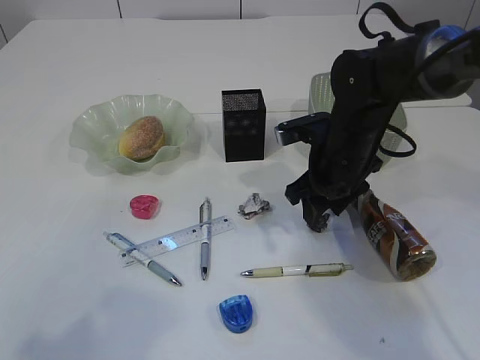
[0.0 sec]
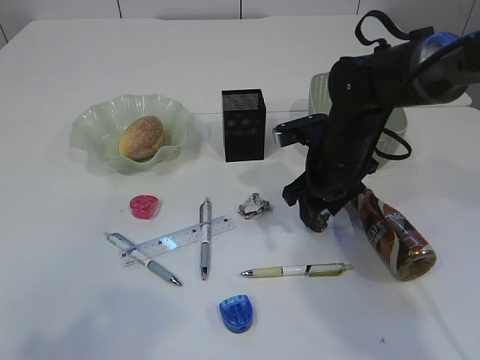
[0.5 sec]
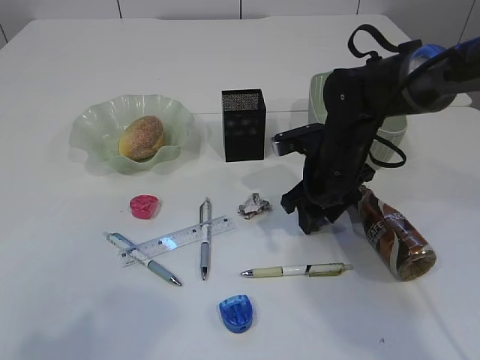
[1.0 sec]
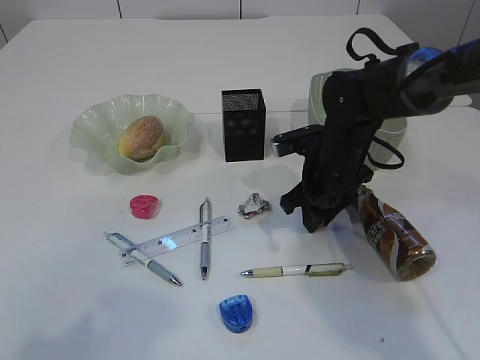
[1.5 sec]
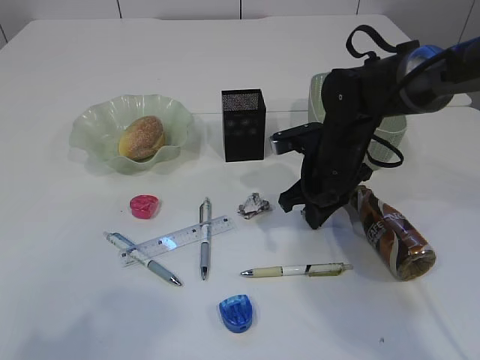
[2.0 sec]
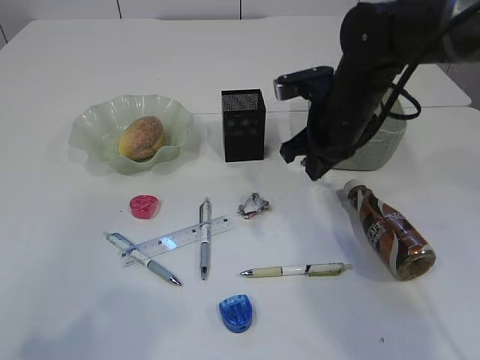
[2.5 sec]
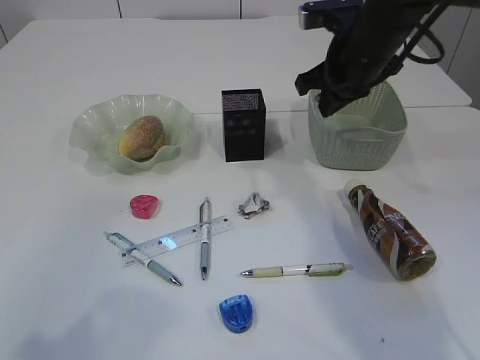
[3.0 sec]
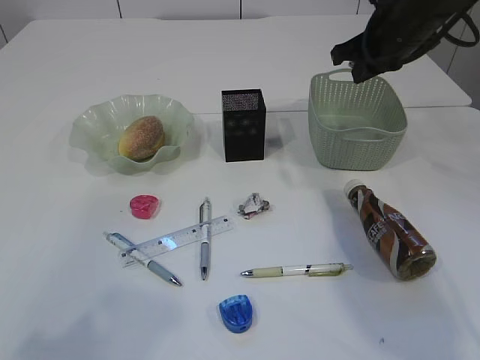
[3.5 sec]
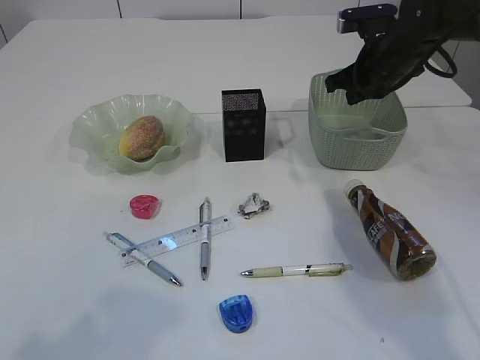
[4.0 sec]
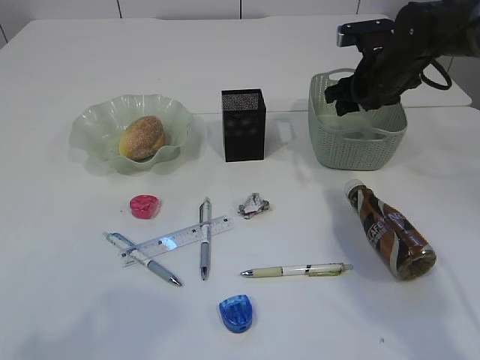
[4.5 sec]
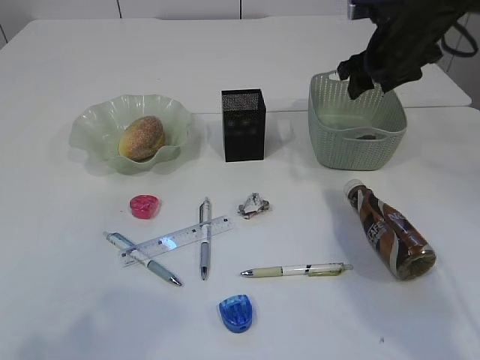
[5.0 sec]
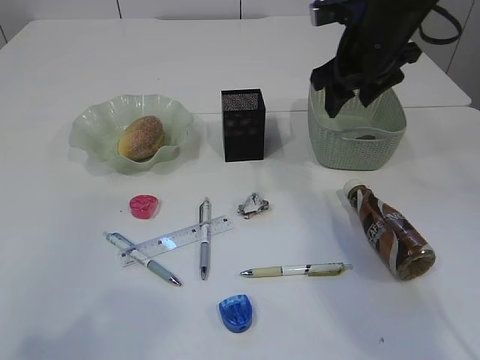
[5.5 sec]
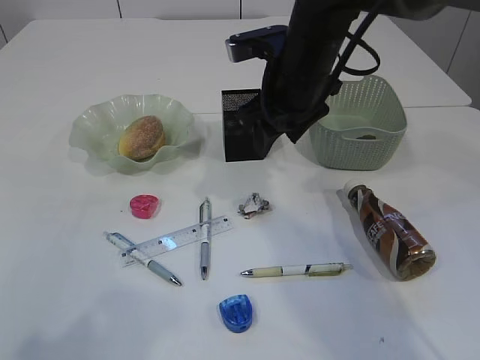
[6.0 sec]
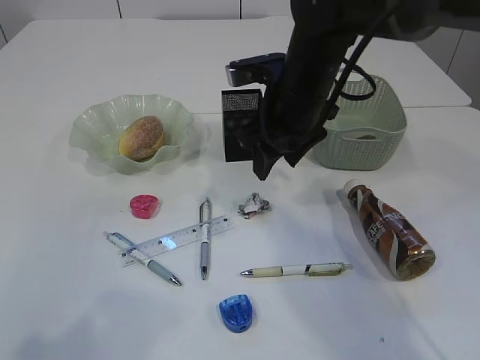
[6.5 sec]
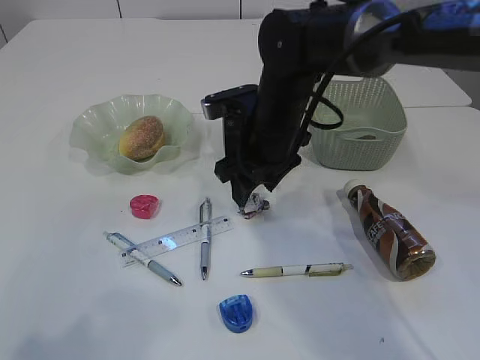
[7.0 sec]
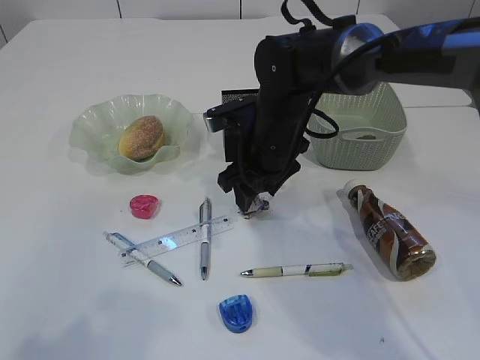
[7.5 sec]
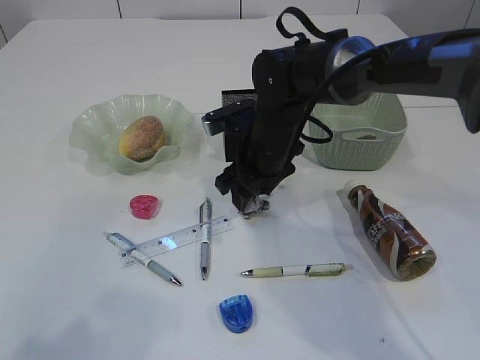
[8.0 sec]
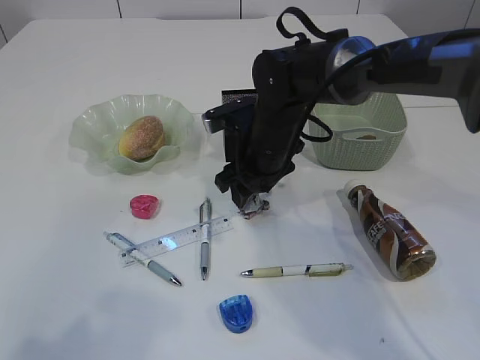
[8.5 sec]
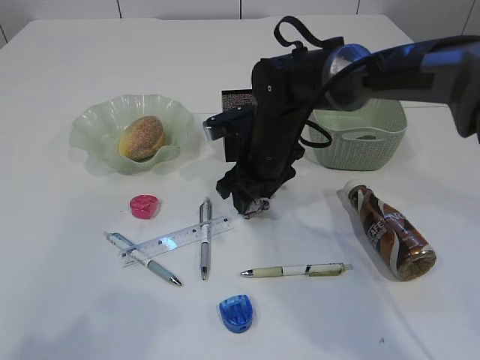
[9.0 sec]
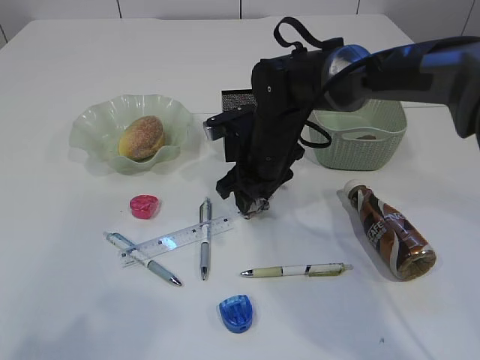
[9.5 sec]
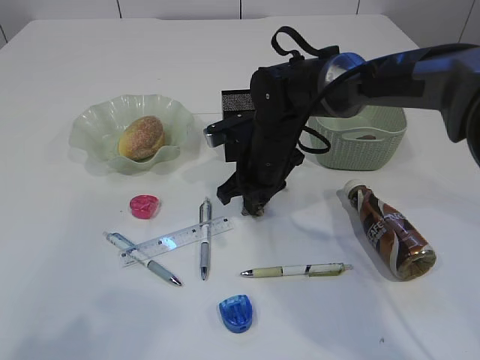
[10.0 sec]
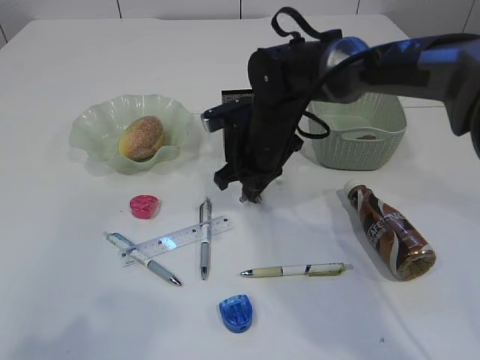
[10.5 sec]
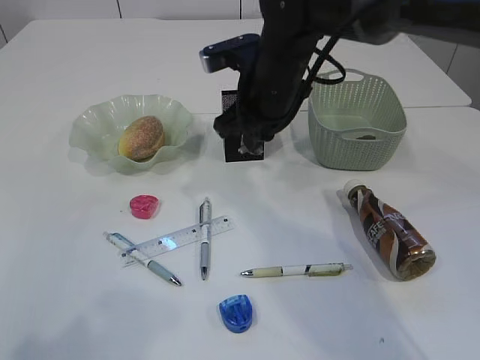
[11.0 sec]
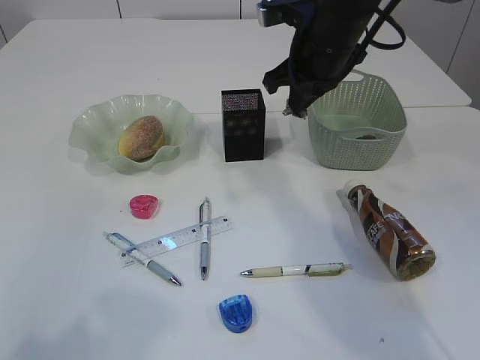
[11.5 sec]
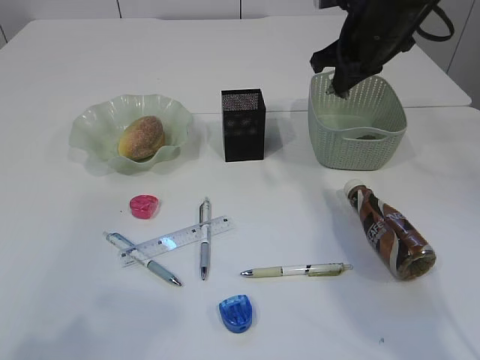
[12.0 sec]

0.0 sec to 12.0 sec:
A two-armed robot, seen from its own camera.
Step, 0.0 sec to 2.5 sec: Pick up the waste paper.
Step, 3.0 sec to 5.0 sec: Place the waste paper in the basket.
Step, 5.5 sec to 10.5 sec: Pick up the waste paper.
0.0 sec to 2.0 sec: The right gripper closes up.
2.0 sec to 4.0 sec: The right gripper moves upward, to the right and forward, roughly 15 cm.
4.0 sec to 6.0 sec: The right gripper heads to the left and backward, covering about 15 cm, and opens up.
6.0 sec to 8.0 sec: The right gripper shifts some 10 cm downward.
8.0 sec to 10.0 sec: The right gripper closes its fingers.
10.0 sec to 12.0 sec: The right gripper travels upward and to the right by some 20 cm.

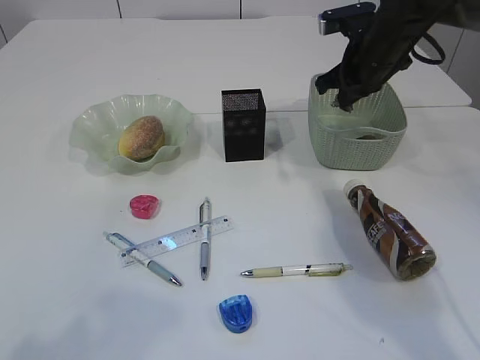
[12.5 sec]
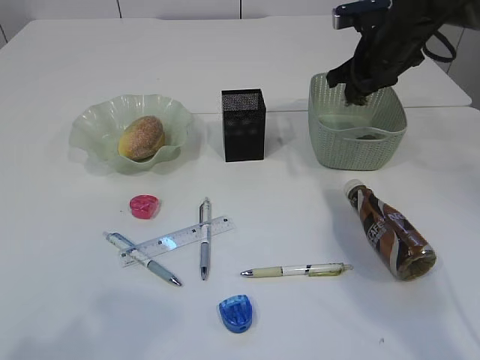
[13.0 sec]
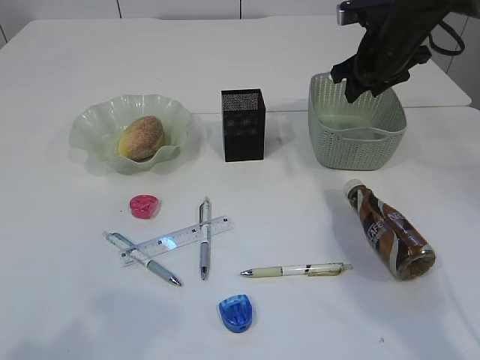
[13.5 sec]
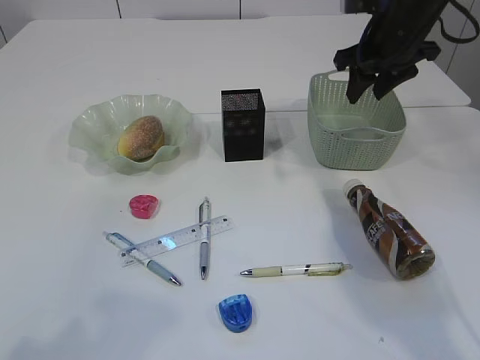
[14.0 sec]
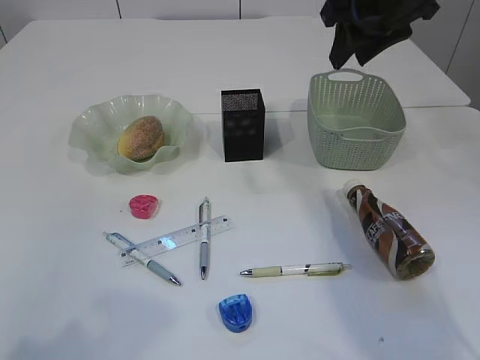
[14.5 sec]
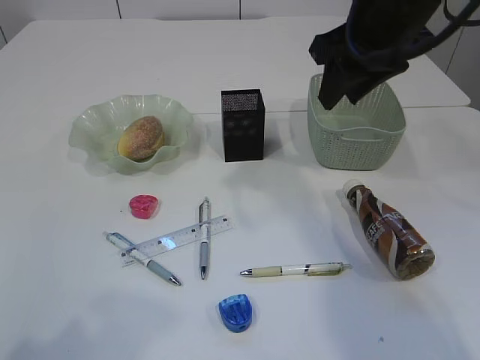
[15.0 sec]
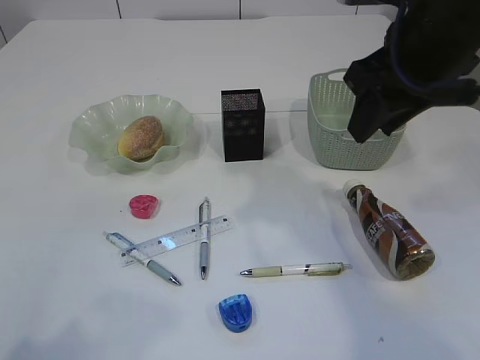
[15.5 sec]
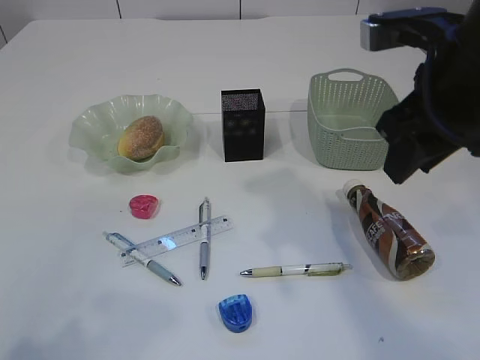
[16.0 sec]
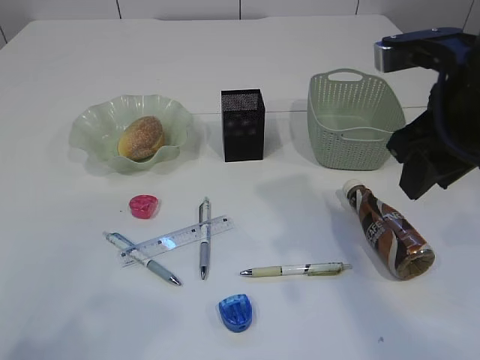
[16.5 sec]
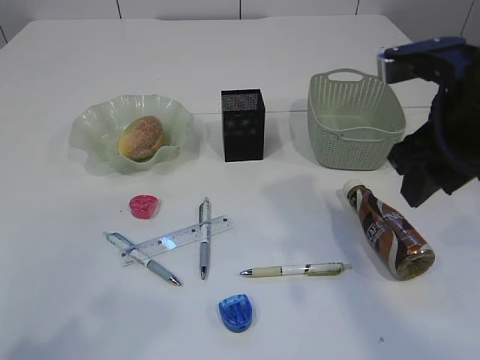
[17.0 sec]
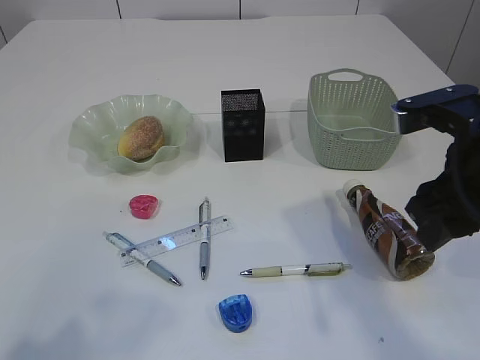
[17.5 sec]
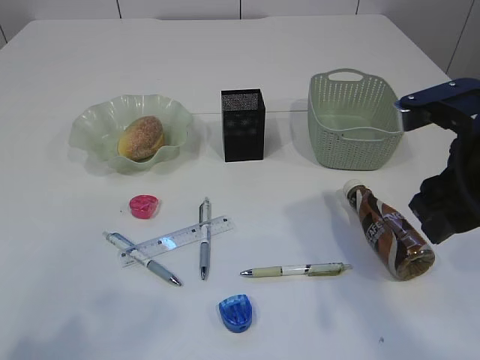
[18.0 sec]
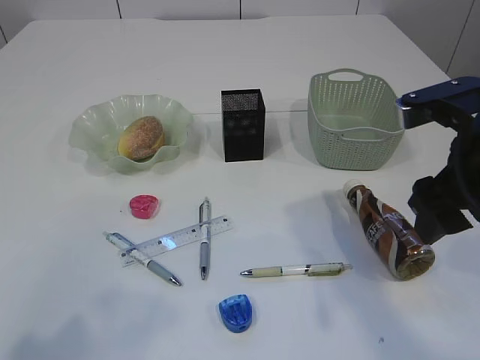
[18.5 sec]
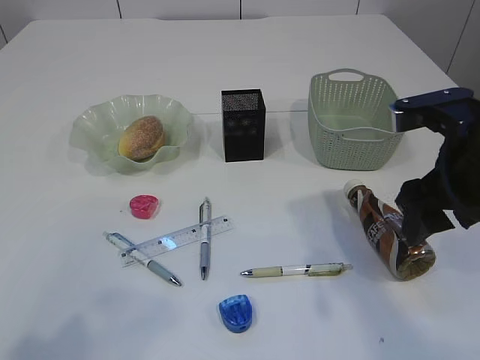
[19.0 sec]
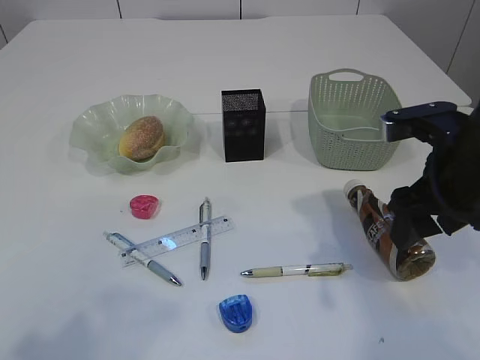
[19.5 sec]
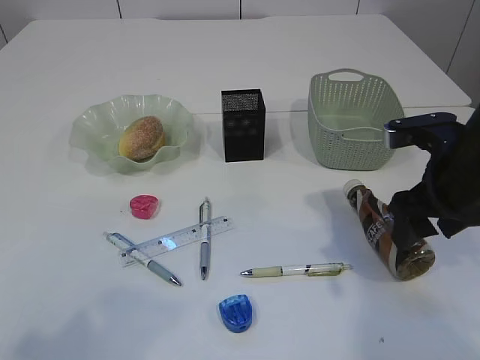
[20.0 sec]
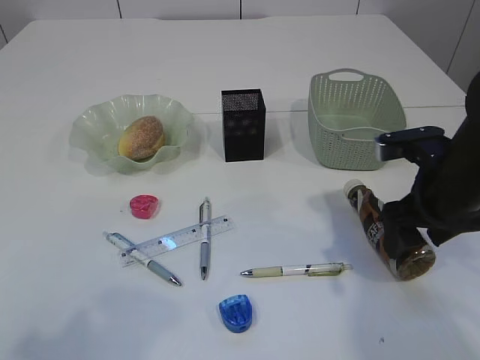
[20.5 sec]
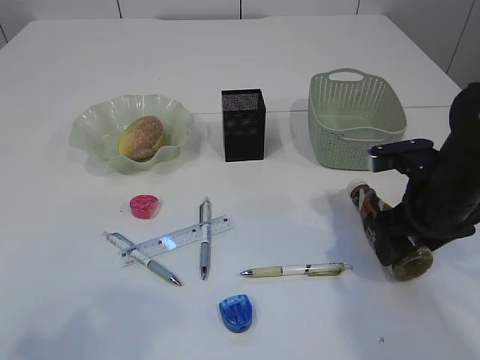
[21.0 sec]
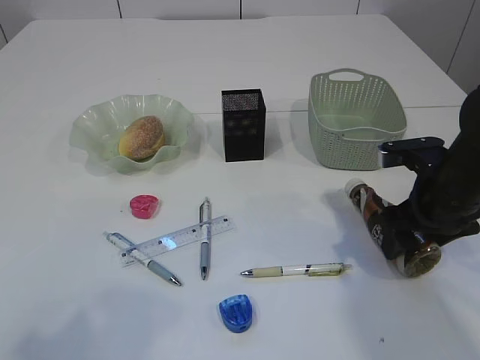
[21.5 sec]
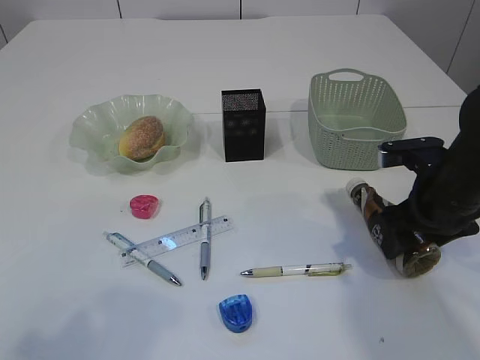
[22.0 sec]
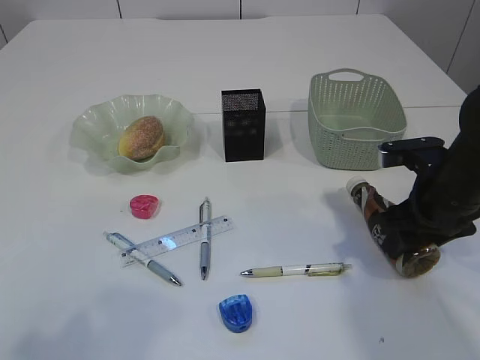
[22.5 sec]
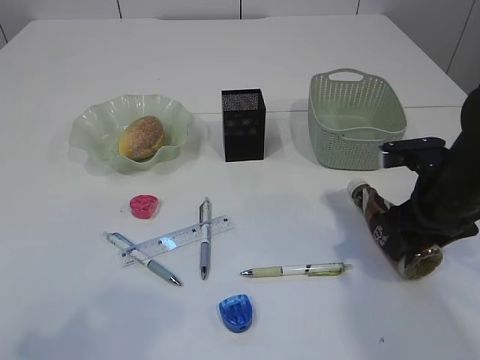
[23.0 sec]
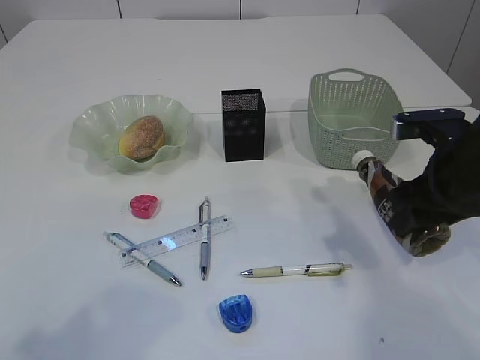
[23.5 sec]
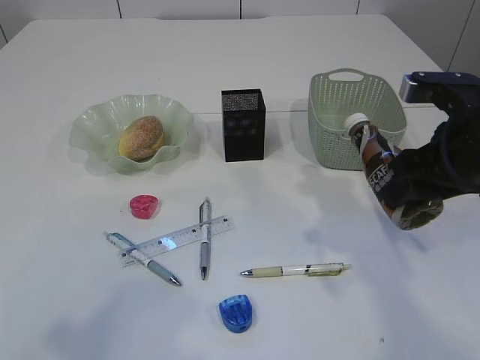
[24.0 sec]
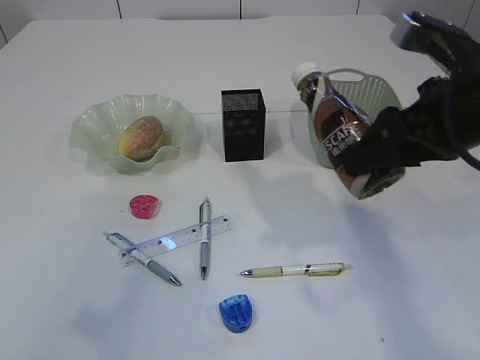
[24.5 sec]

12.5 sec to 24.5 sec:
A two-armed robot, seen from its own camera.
Step, 14.0 sec to 23.5 sec: Pick up the bottle with the right arm.
12.5 sec to 14.5 sec: The right gripper is displaced upward and backward by some 15 cm, and opens its fingers.
14.5 sec to 16.5 sec: The right gripper shifts some 15 cm backward.
16.5 sec to 18.5 sec: The right gripper ends up about 5 cm from where it was, and opens.
18.5 sec to 20.5 sec: The right gripper goes some 10 cm downward.
20.5 sec to 22.5 sec: The grippers move only a little.
22.5 sec to 24.5 sec: The right gripper moves upward, roughly 15 cm.

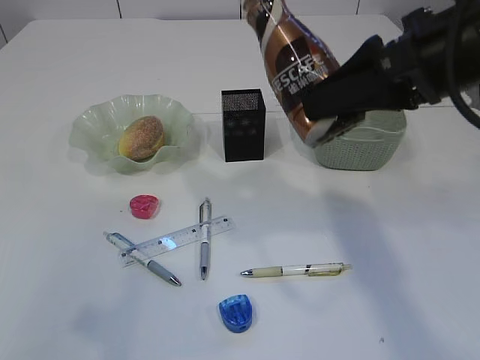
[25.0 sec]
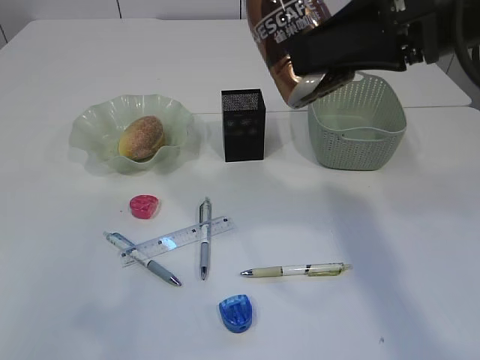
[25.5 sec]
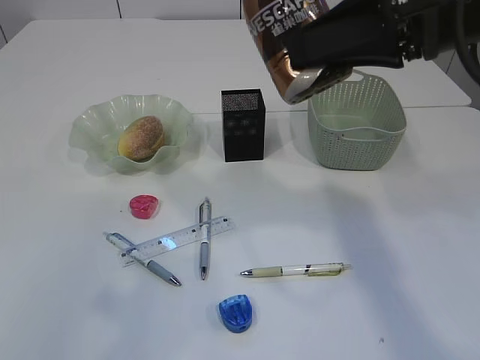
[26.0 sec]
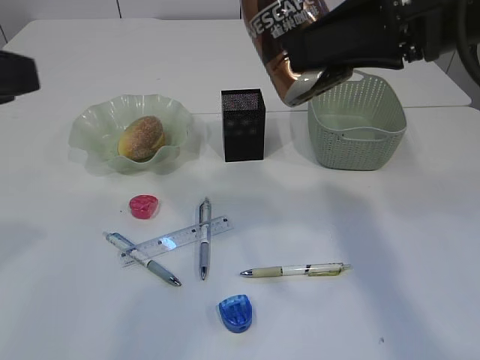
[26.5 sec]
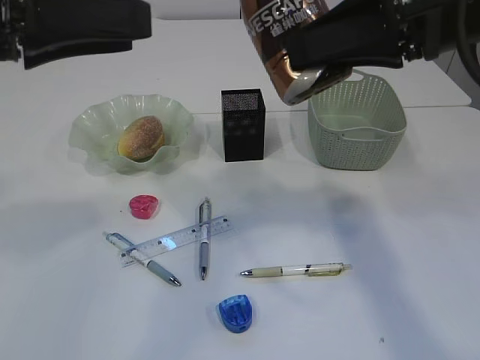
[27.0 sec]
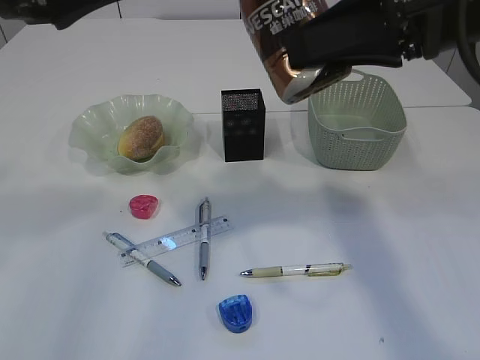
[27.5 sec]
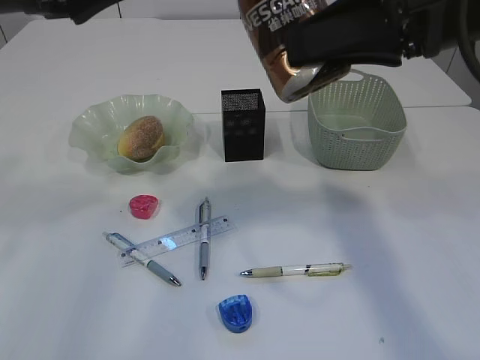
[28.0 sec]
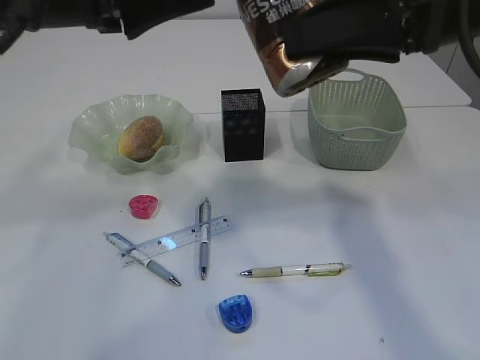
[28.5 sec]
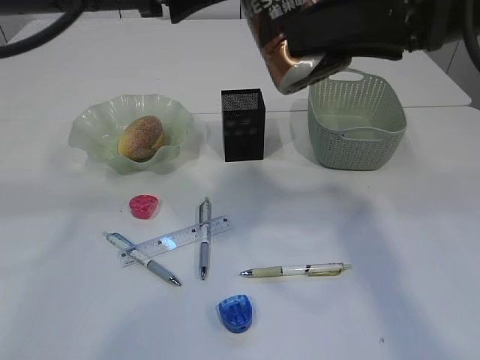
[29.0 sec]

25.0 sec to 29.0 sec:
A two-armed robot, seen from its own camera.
25.0 sec to 27.0 sec: The left gripper is displaced forward and to the right by roughly 15 cm.
27.0 sec to 29.0 sec: The left gripper heads forward and to the right, covering approximately 10 cm.
